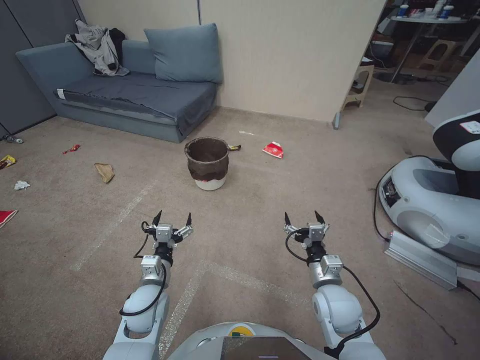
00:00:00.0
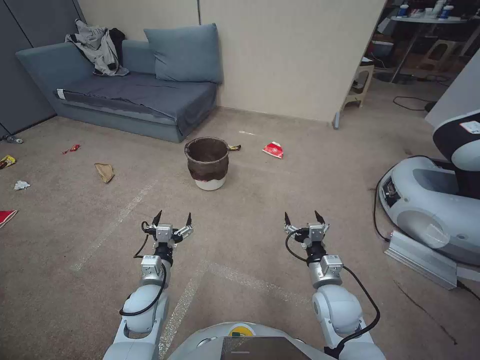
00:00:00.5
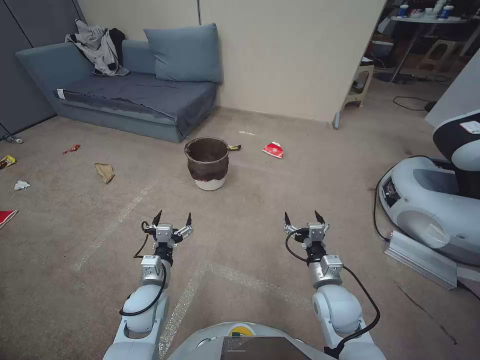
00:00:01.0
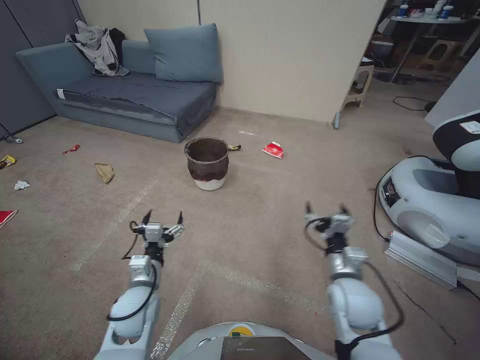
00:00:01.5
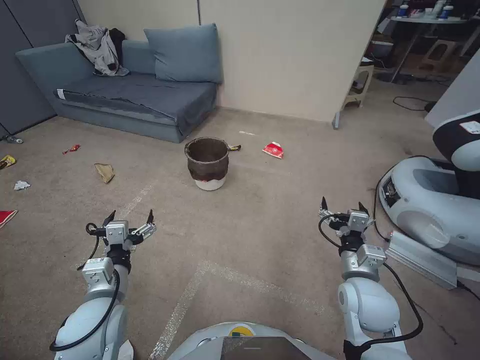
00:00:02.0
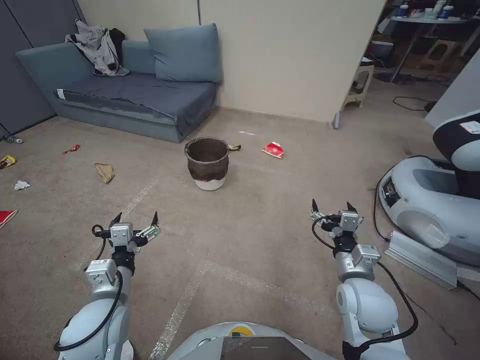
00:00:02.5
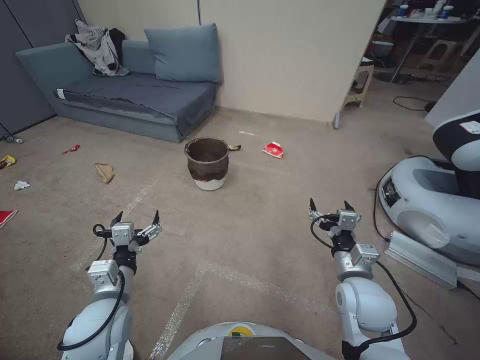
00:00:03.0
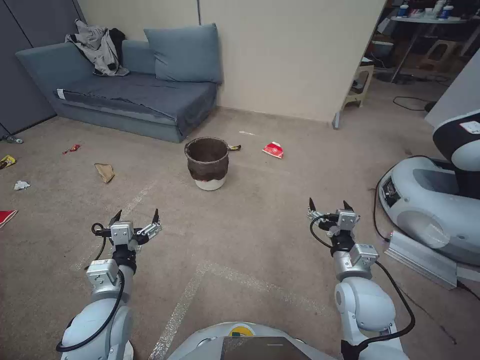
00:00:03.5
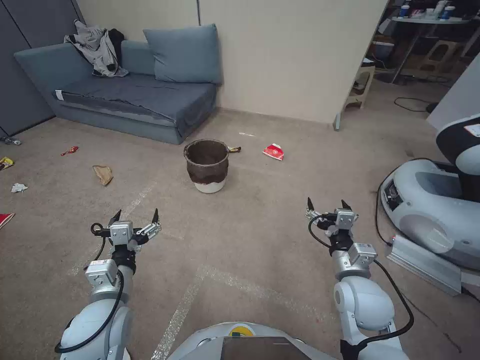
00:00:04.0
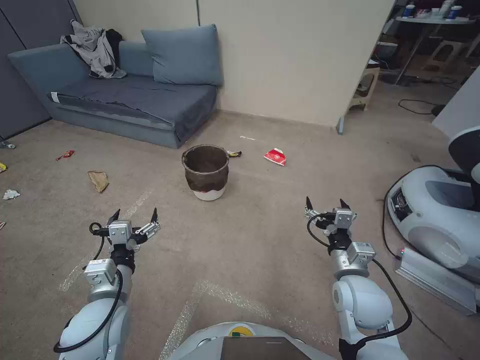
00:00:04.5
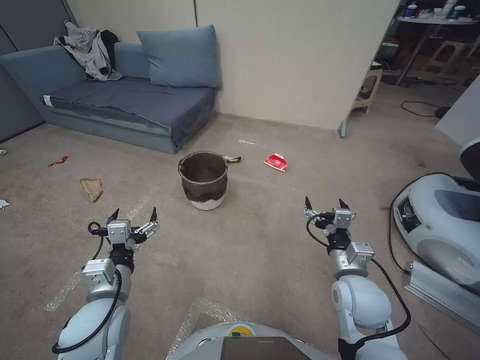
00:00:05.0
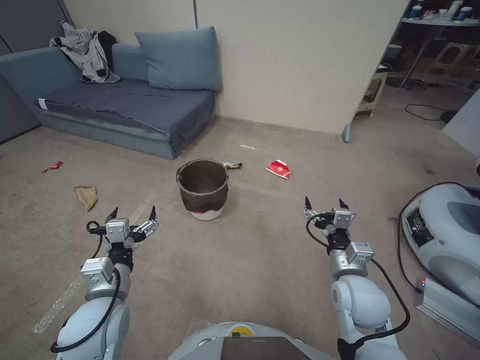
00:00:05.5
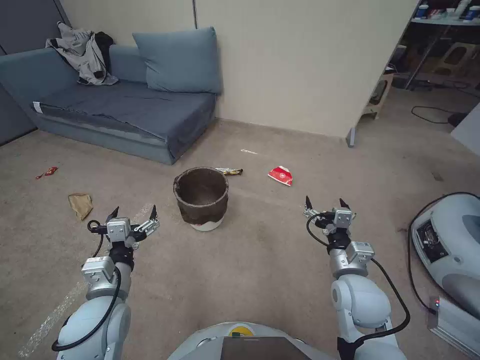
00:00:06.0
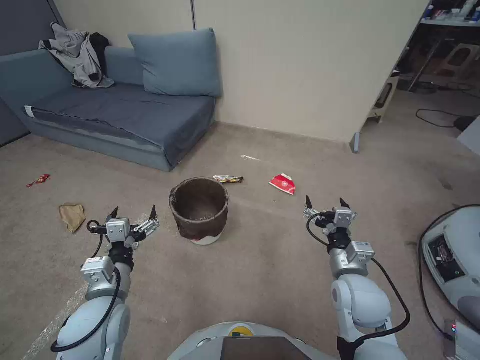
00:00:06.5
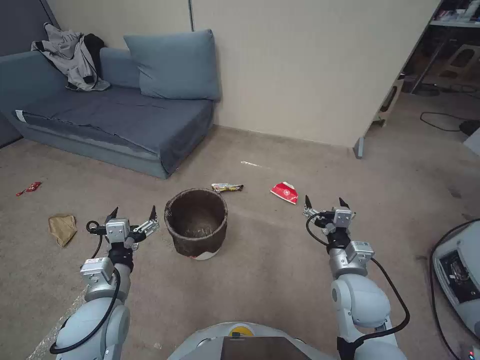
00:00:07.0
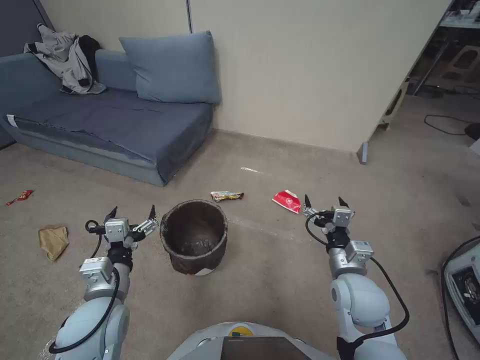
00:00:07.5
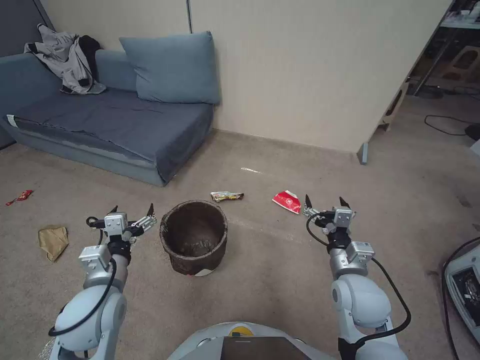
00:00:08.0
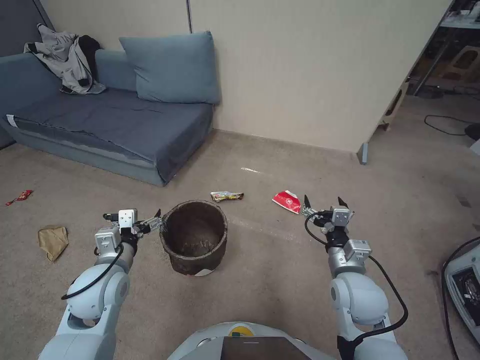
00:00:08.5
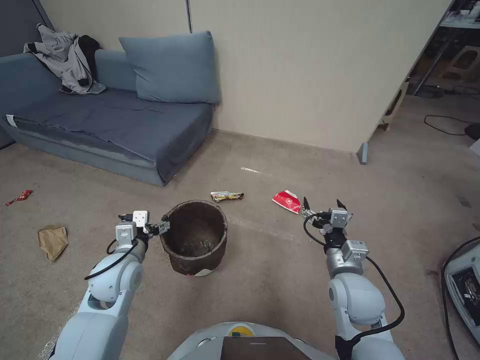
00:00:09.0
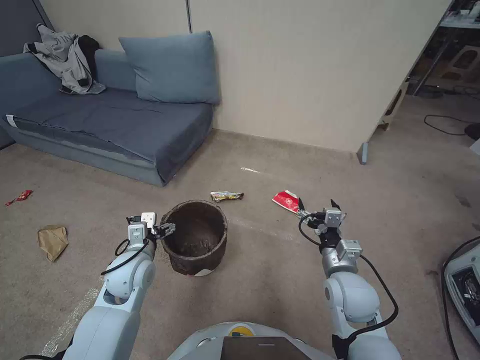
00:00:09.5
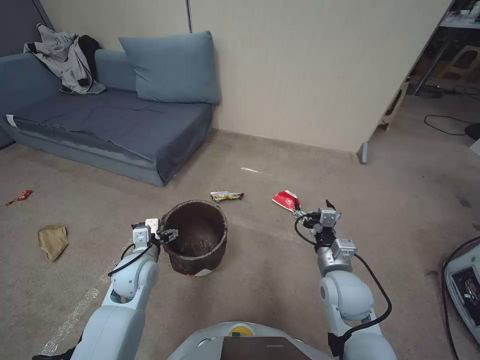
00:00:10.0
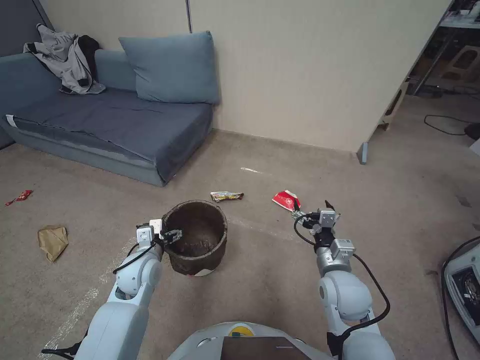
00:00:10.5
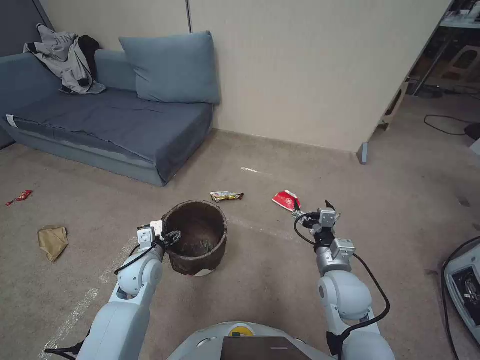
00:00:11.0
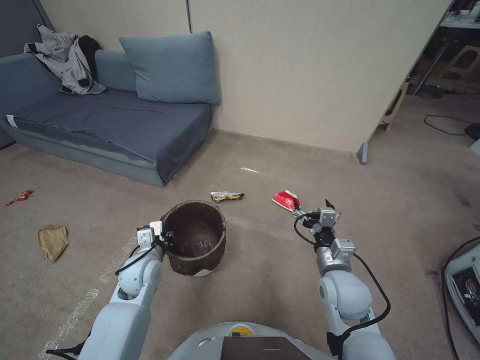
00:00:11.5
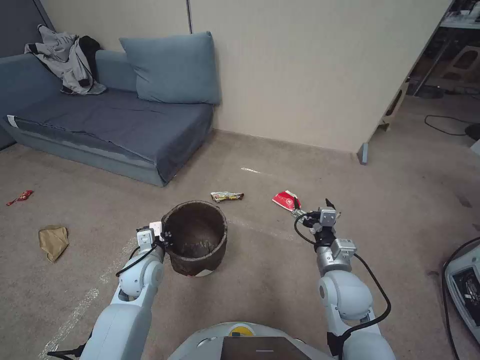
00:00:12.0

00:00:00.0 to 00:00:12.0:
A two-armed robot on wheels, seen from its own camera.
Task of the whole recording: Pick up the trash bin, then pick up the garbage from the floor and place it into the trash bin.
00:00:02.0 to 00:00:04.0: There are only small adjustments of the grippers.
00:00:08.0 to 00:00:10.0: The left gripper travels forward and downward by some 10 cm.
00:00:10.0 to 00:00:12.0: The left gripper closes up.

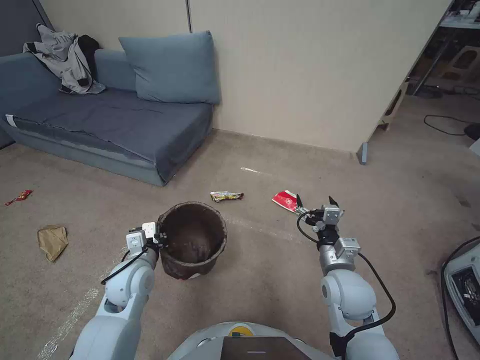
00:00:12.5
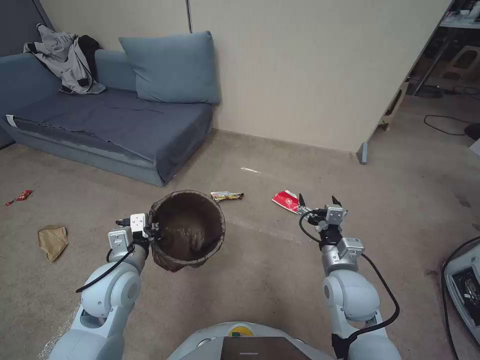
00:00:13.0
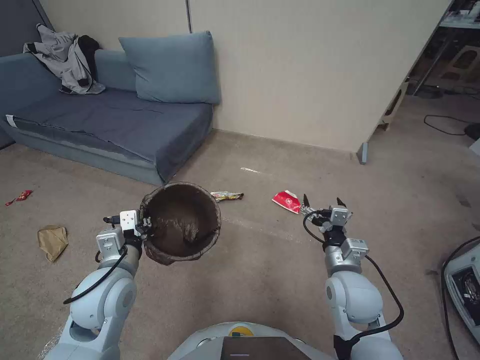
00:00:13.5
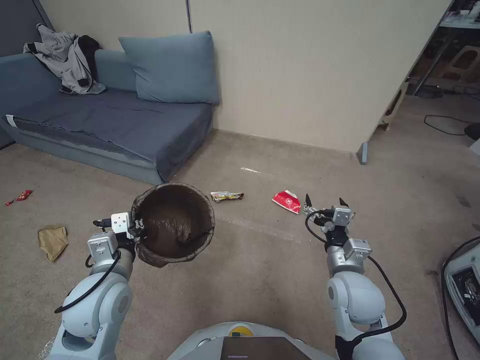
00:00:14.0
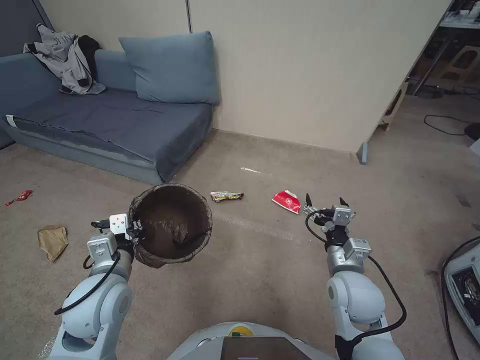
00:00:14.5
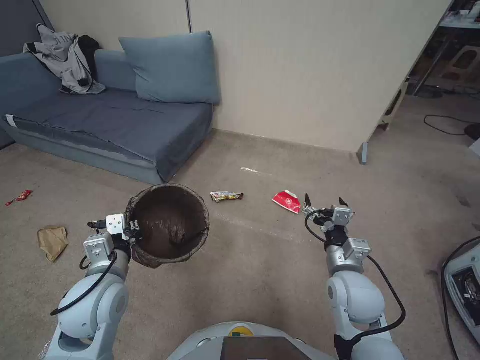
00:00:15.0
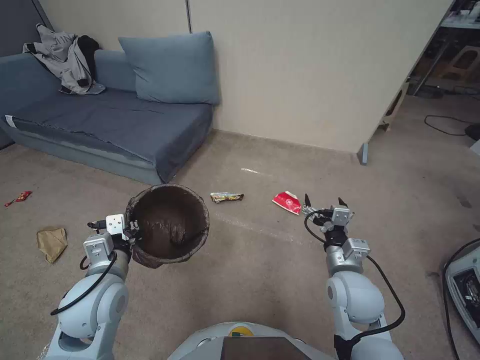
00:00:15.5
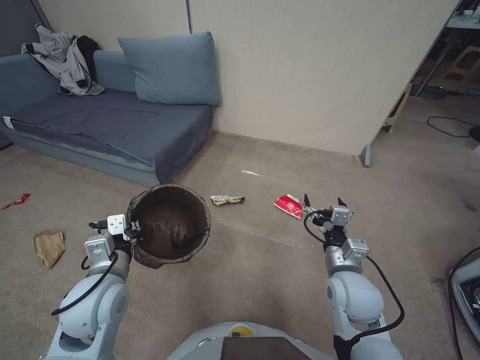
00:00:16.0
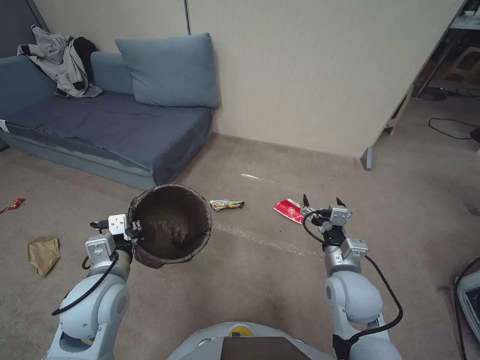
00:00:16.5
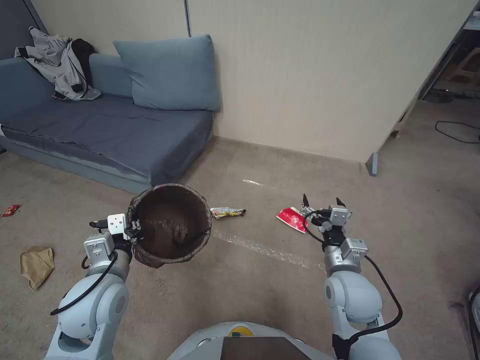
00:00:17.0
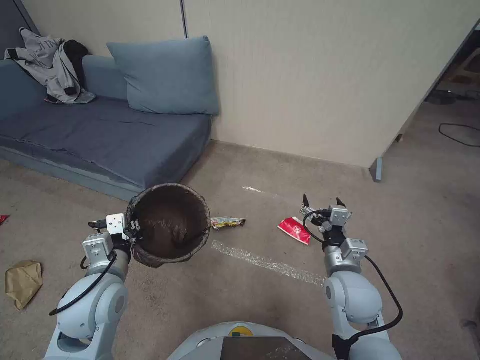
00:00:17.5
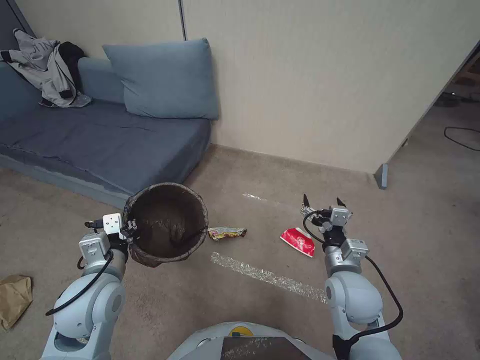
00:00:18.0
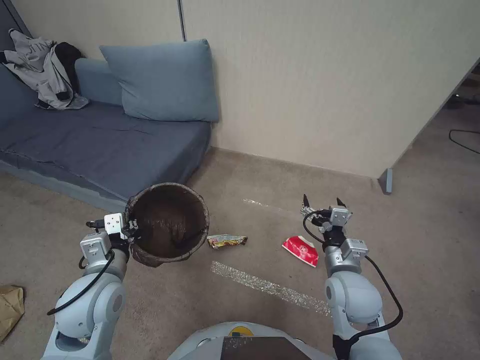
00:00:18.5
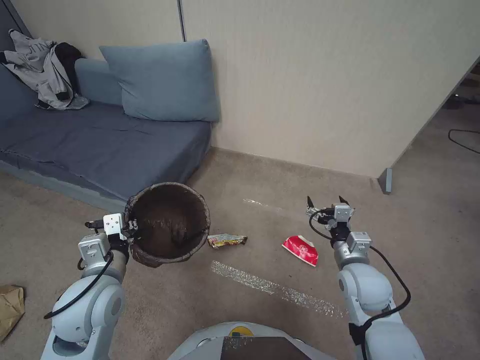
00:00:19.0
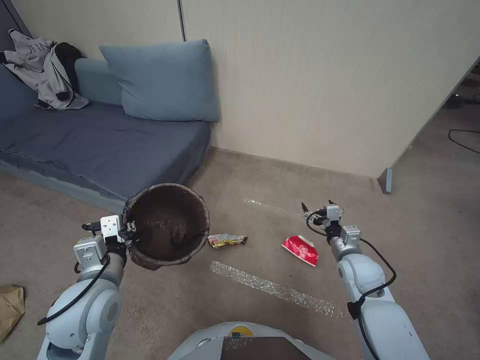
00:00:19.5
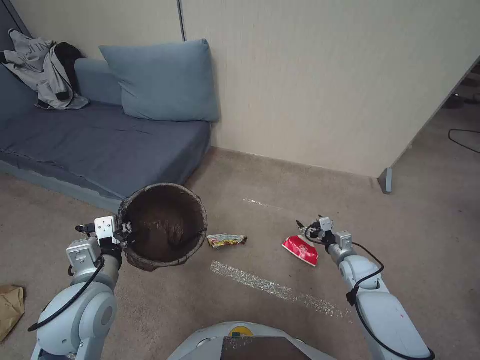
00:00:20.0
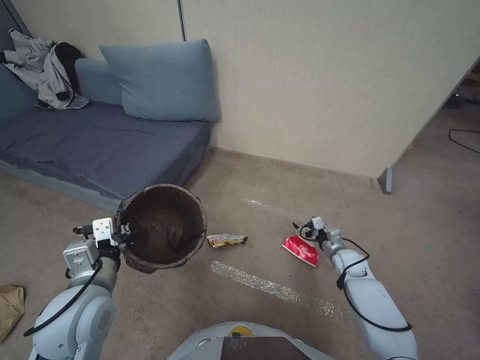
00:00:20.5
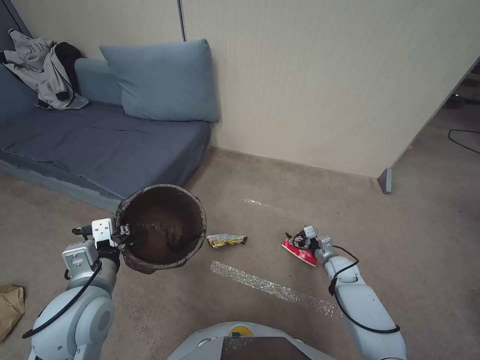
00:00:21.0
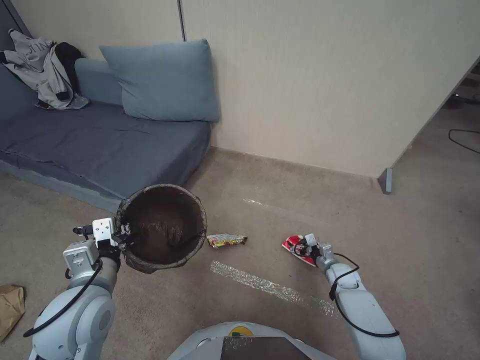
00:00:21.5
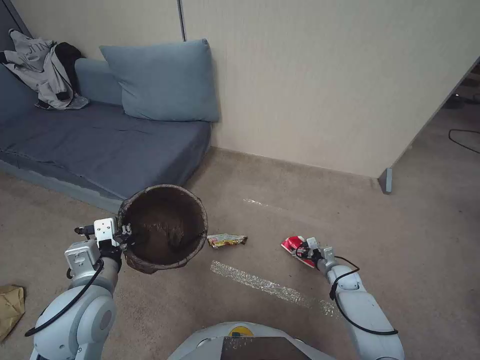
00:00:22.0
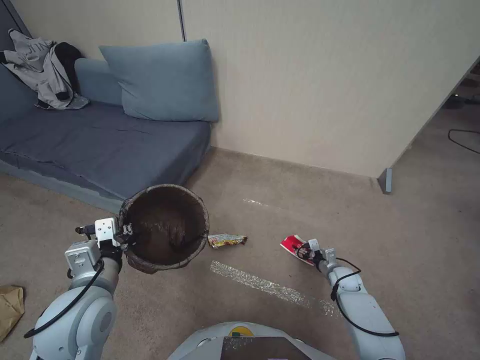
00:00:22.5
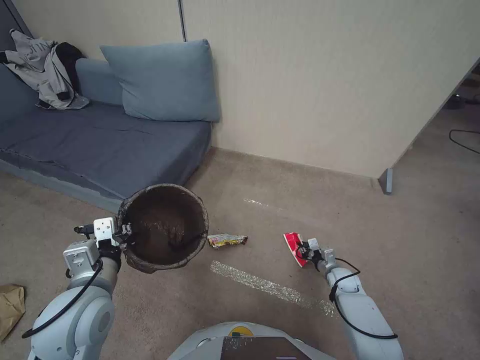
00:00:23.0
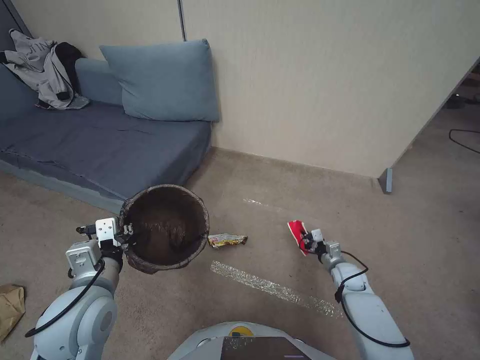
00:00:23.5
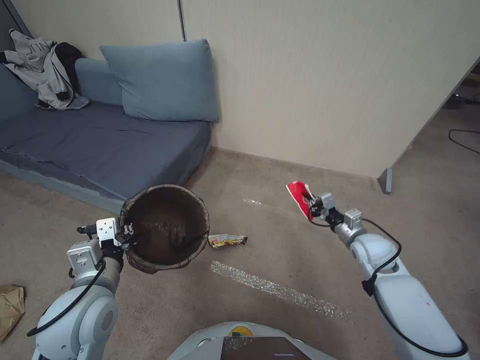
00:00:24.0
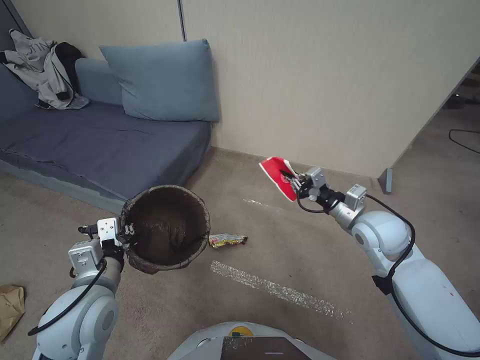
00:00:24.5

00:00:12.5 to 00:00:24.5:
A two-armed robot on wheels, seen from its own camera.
Task of the whole recording: Pick up the trash bin, then pick up the garbage from the floor and place it into the trash bin.
00:00:12.5 to 00:00:14.5: The left gripper moves upward and backward, approximately 10 cm.
00:00:14.5 to 00:00:18.5: The two grippers keep their place.
00:00:18.5 to 00:00:20.5: The right gripper travels downward, to the right and forward by approximately 25 cm.
00:00:20.5 to 00:00:22.5: The right gripper shifts about 10 cm downward.
00:00:22.5 to 00:00:24.5: The right gripper moves upward, approximately 30 cm, and closes.

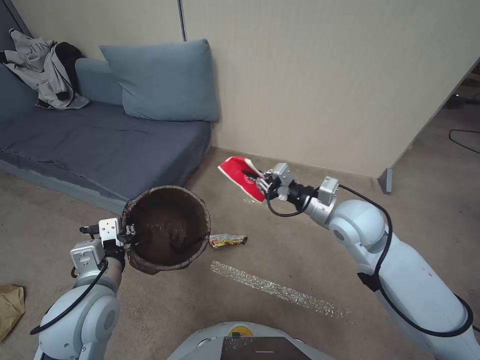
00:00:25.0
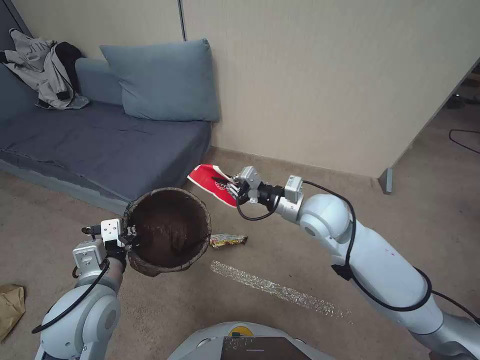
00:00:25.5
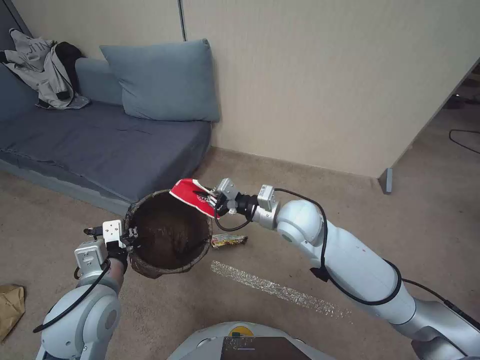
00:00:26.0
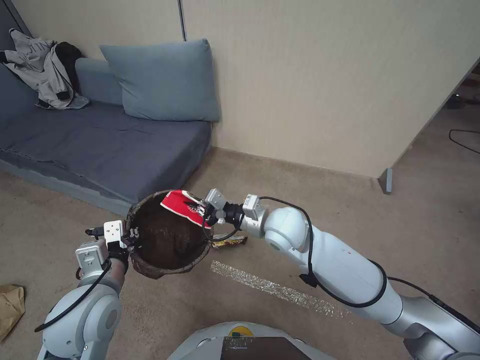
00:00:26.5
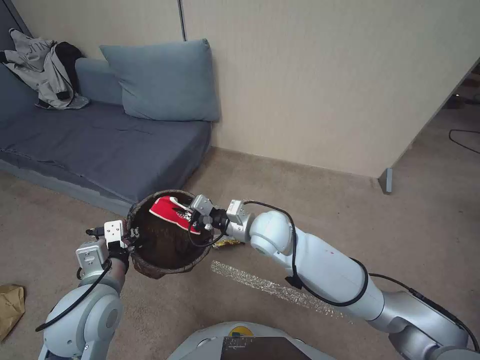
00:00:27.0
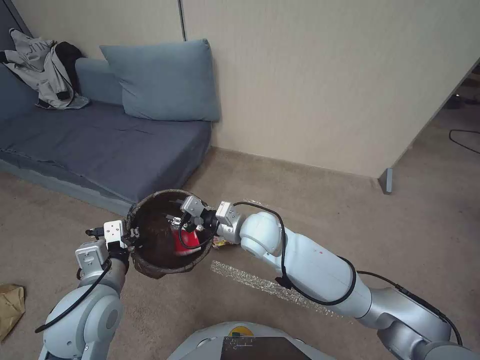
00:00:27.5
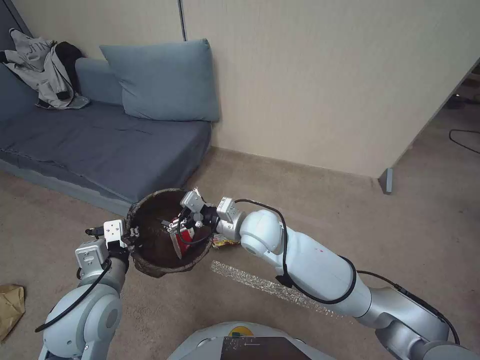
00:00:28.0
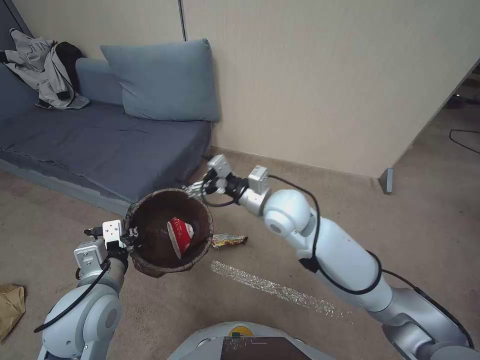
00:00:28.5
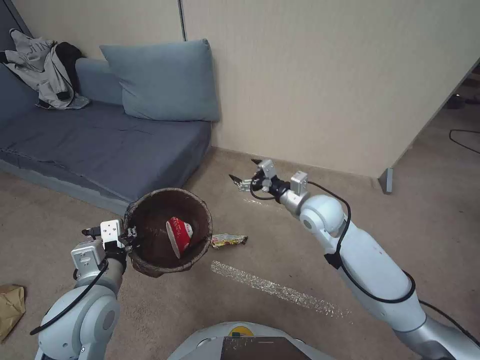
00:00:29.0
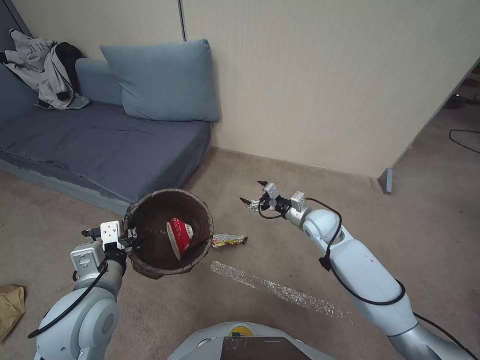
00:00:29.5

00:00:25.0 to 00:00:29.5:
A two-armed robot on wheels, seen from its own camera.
Task of the whole recording: Pick up the trash bin, then pick up the garbage from the floor and place it into the trash bin.
00:00:25.0 to 00:00:27.0: The right gripper heads to the left, covering about 20 cm.
00:00:27.0 to 00:00:29.5: The right gripper moves to the right, some 15 cm, and opens up.
